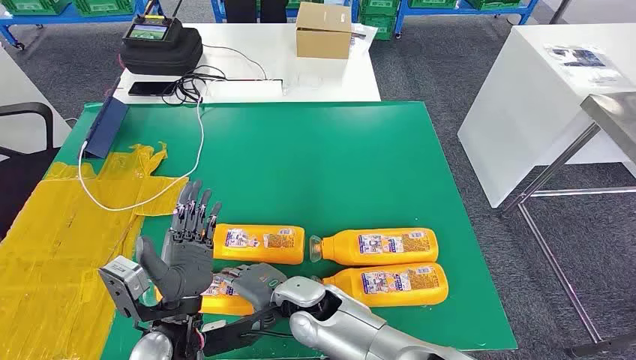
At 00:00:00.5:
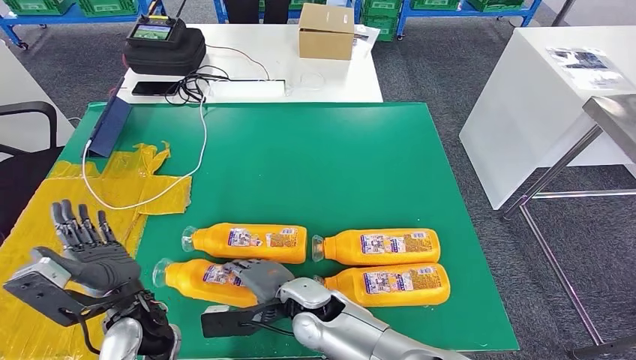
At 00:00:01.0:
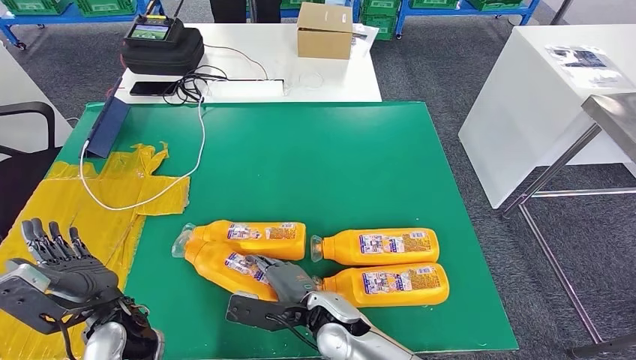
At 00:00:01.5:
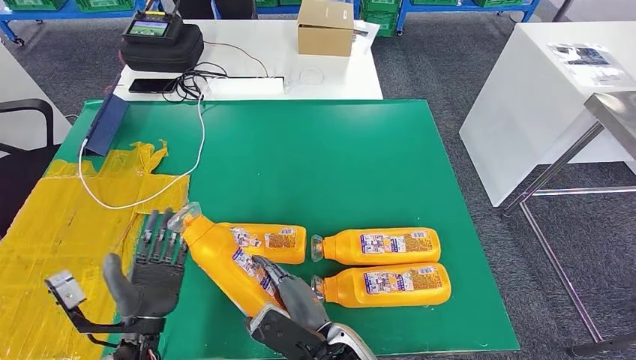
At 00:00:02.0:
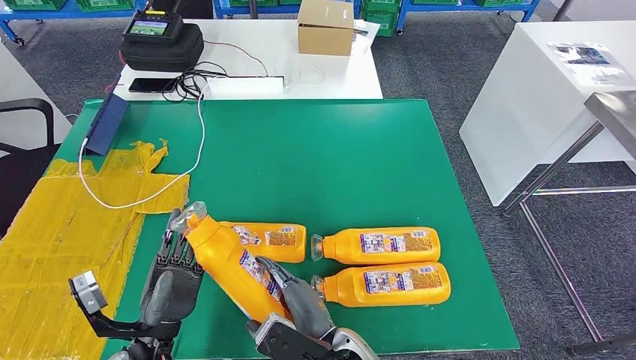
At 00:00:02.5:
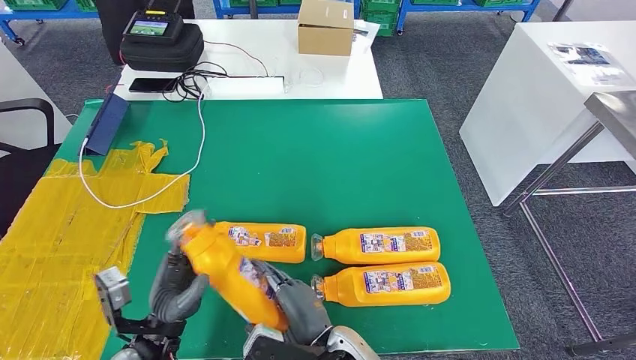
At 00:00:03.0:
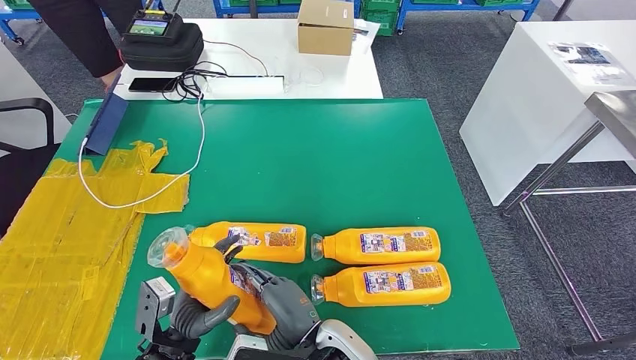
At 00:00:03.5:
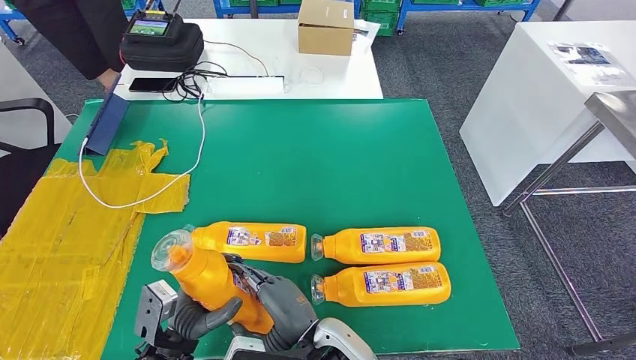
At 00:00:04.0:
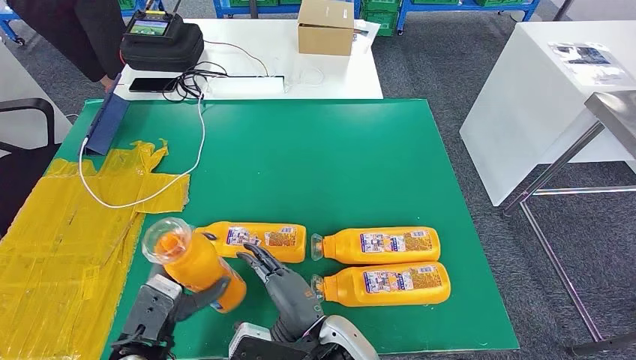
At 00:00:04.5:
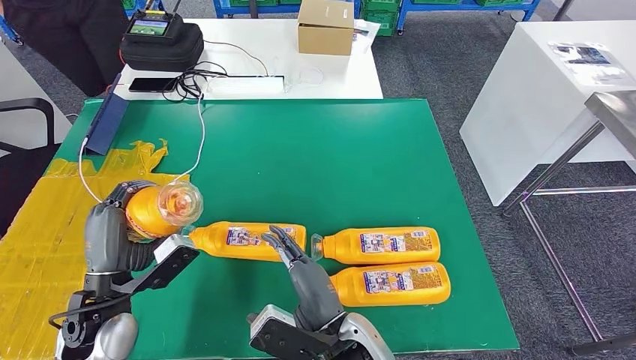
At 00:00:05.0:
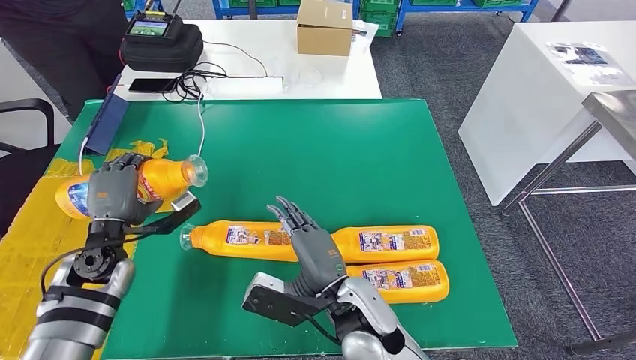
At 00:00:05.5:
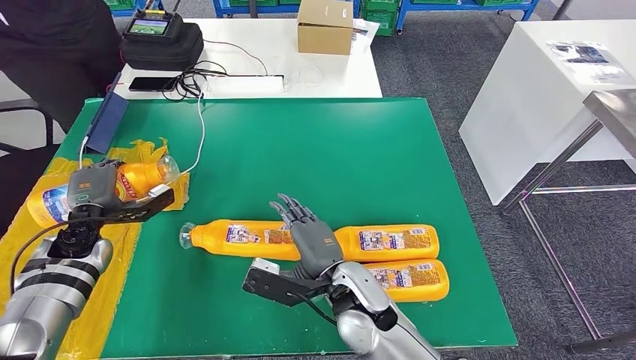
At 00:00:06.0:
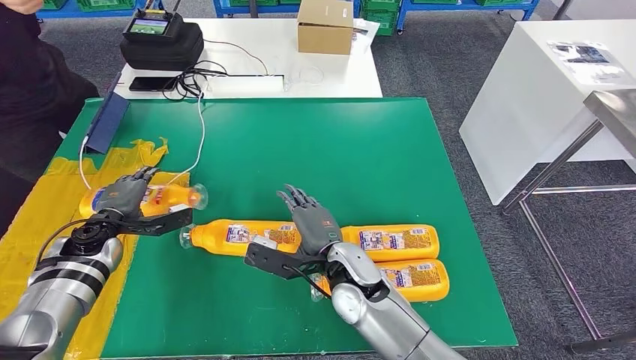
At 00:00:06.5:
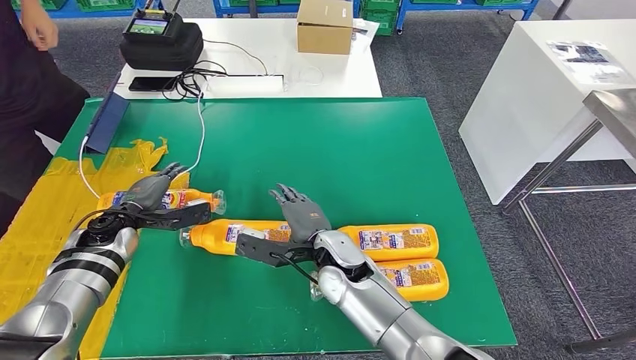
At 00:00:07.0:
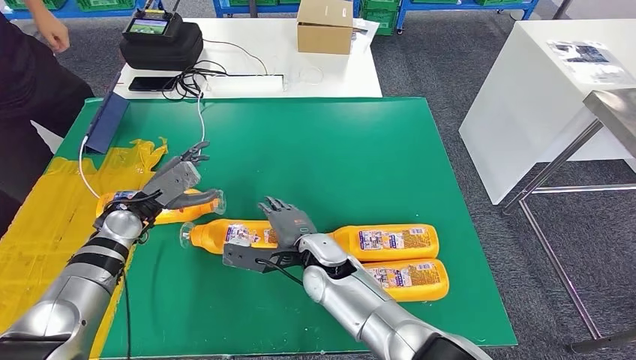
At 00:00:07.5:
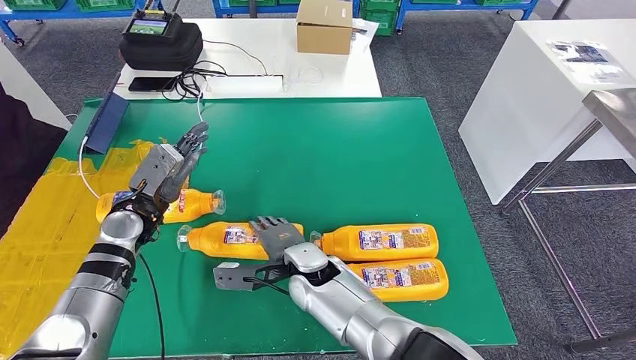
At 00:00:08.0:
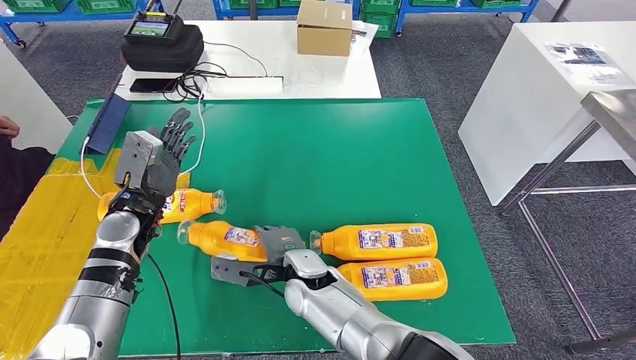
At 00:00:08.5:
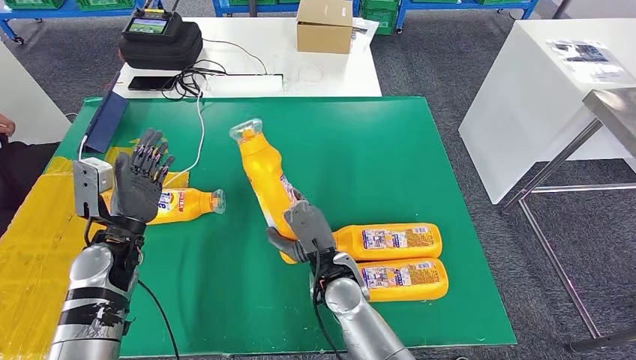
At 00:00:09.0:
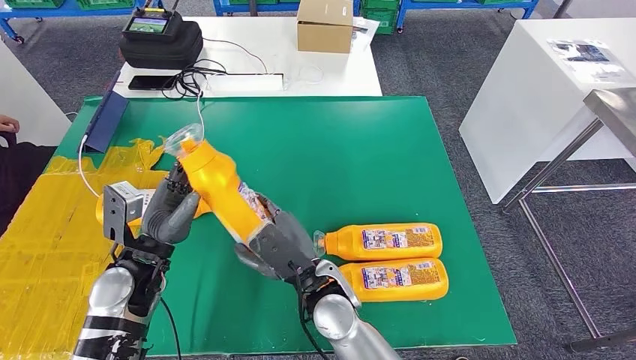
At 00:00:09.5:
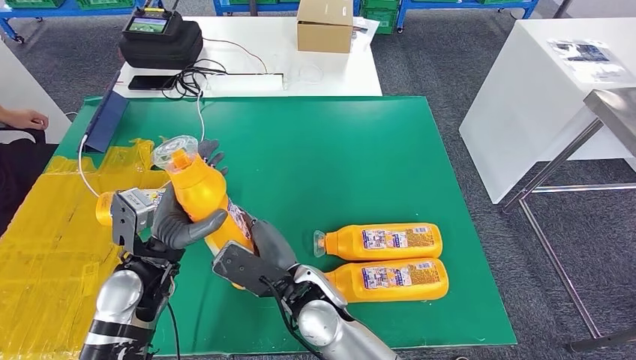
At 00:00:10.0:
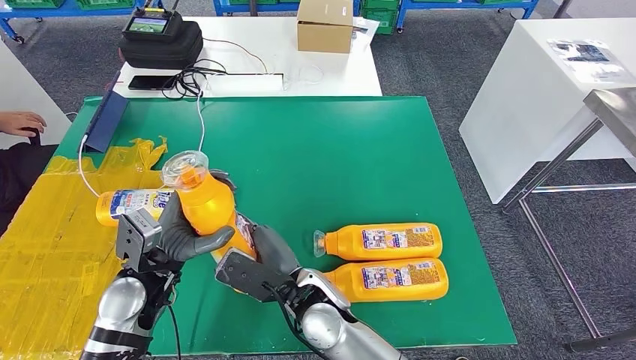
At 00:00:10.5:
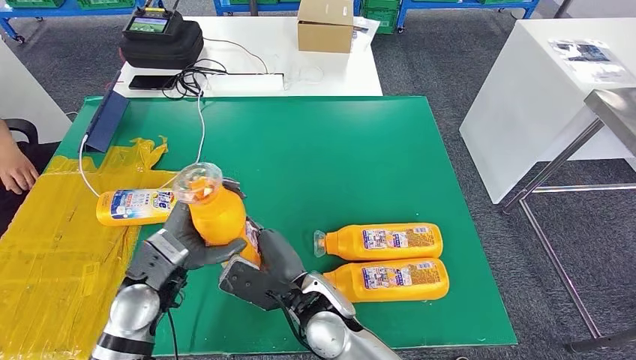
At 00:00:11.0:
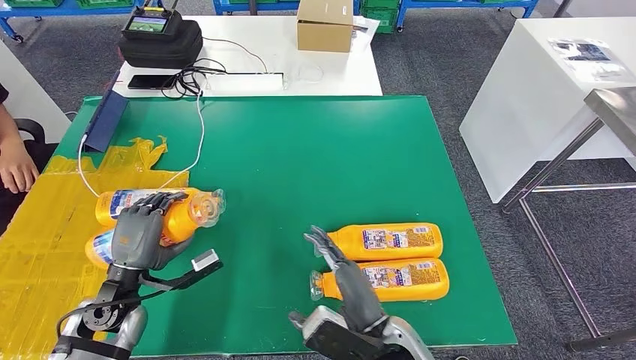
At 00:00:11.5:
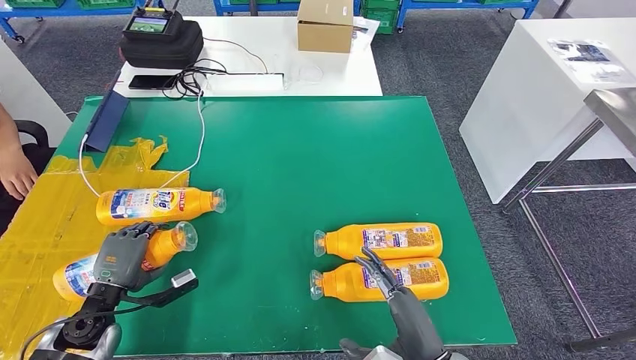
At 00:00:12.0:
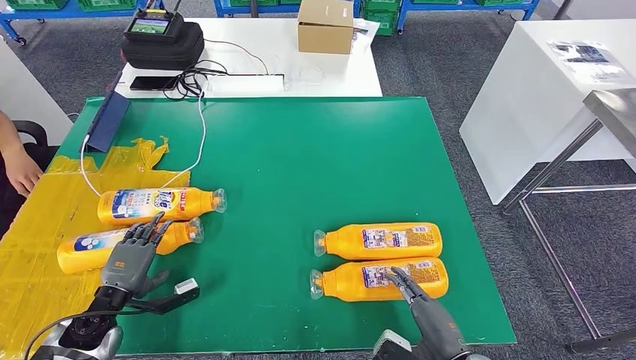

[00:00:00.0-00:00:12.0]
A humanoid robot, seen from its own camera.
Step, 00:00:00.0 to 00:00:03.5: Take the fast-moving consumer goods bottle from the table.
Step, 00:00:04.0 to 00:00:07.0: Flip the fast-moving consumer goods bottle to the front side.
Step, 00:00:08.5 to 00:00:10.0: Pick up the fast-moving consumer goods bottle from the table.
00:00:10.0 to 00:00:12.0: The right hand moves to the right and backward, some 30 cm. Meanwhile the left hand moves to the left and downward, about 20 cm.

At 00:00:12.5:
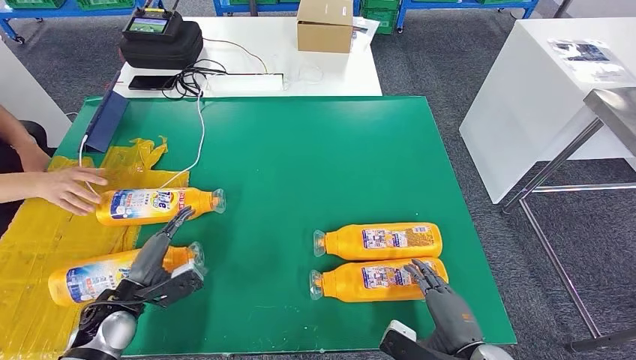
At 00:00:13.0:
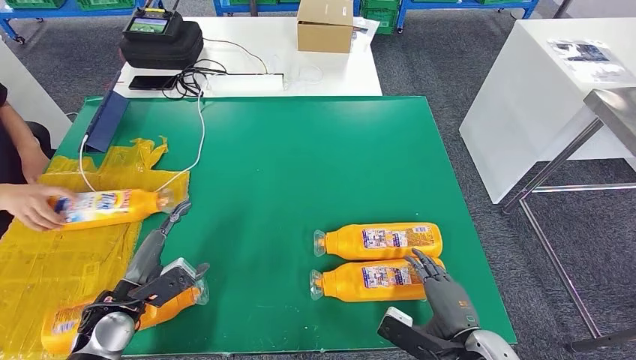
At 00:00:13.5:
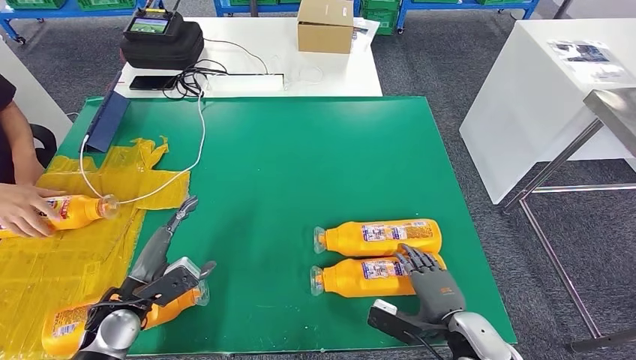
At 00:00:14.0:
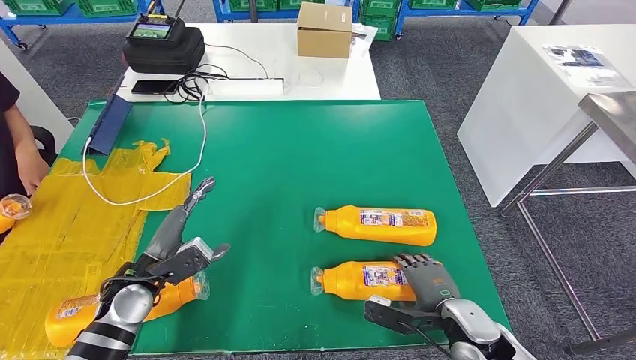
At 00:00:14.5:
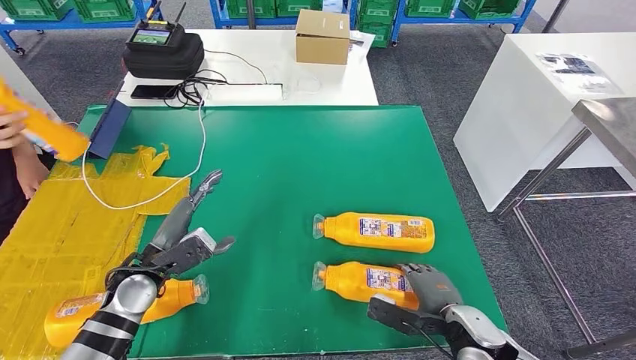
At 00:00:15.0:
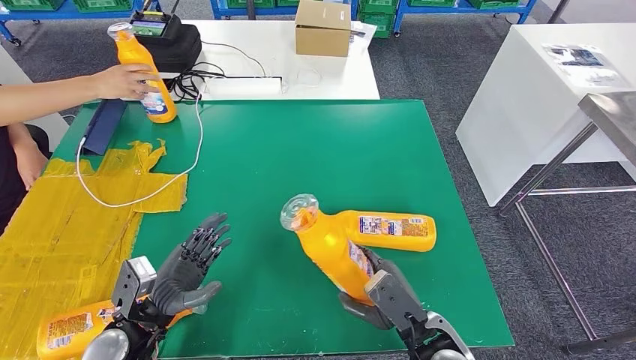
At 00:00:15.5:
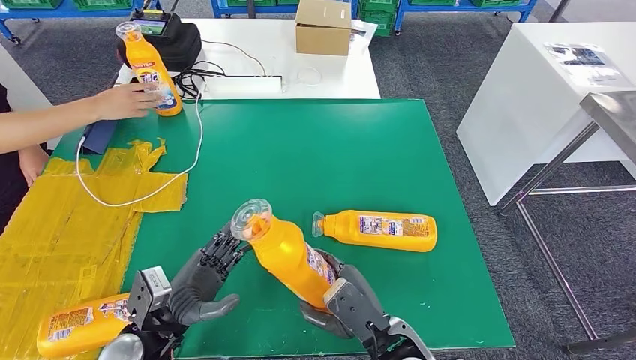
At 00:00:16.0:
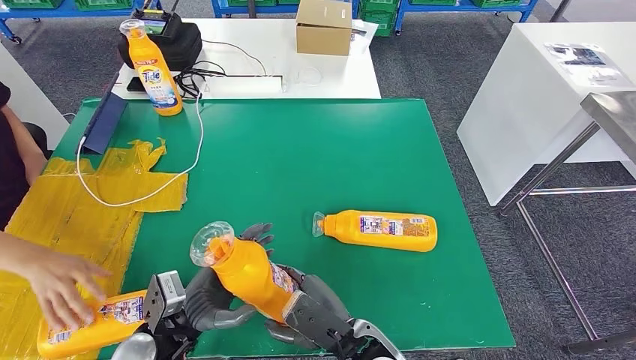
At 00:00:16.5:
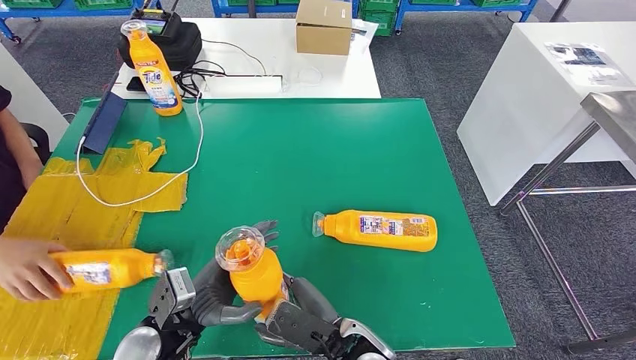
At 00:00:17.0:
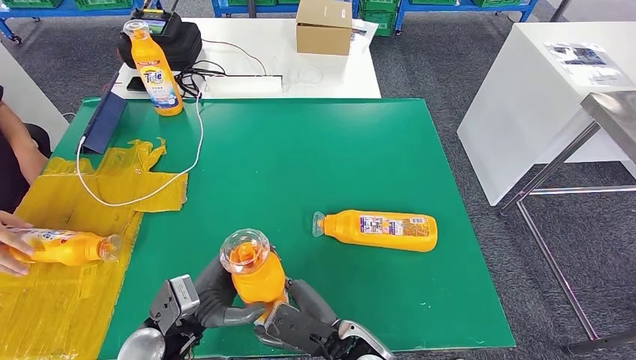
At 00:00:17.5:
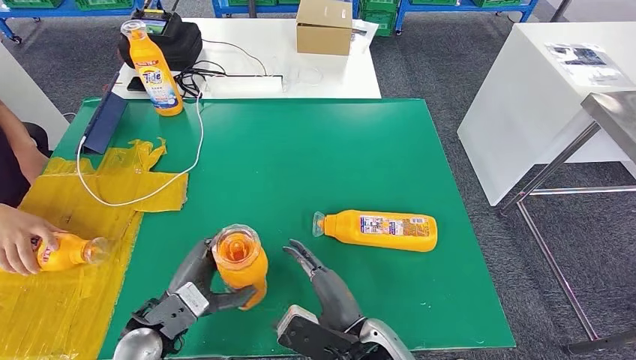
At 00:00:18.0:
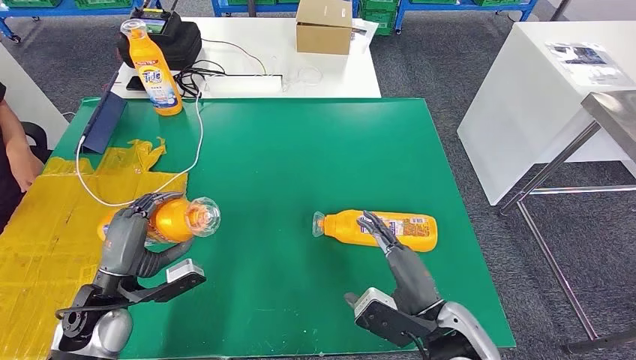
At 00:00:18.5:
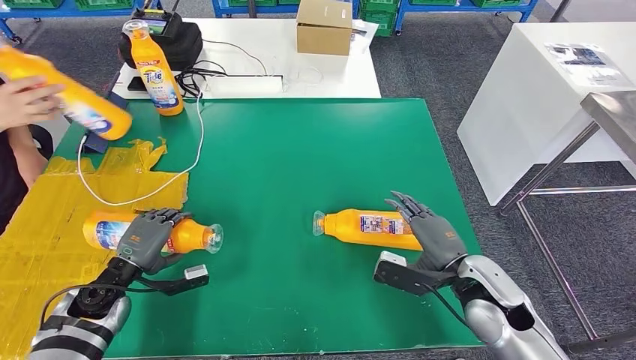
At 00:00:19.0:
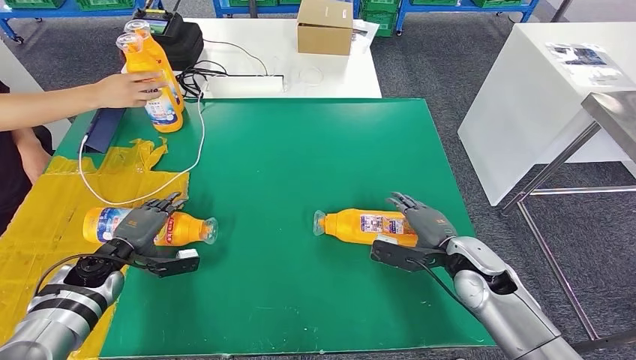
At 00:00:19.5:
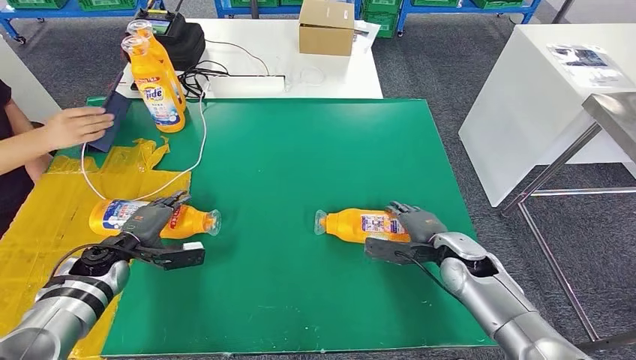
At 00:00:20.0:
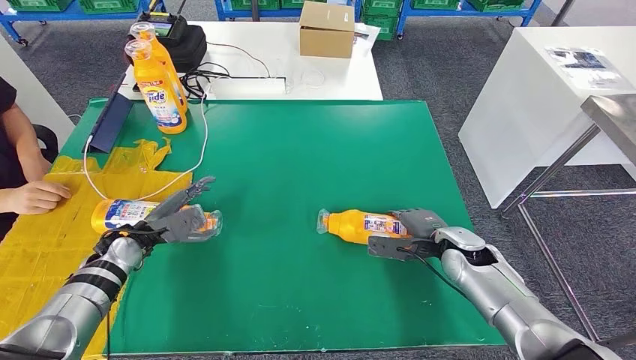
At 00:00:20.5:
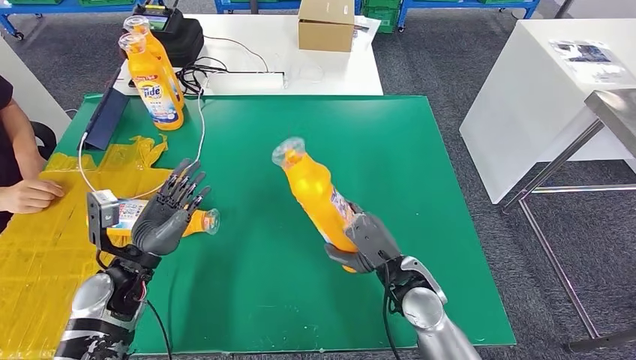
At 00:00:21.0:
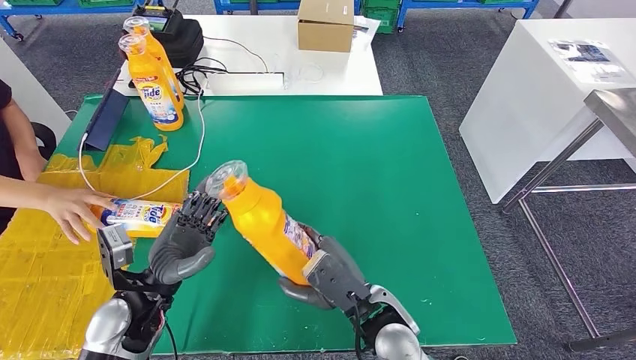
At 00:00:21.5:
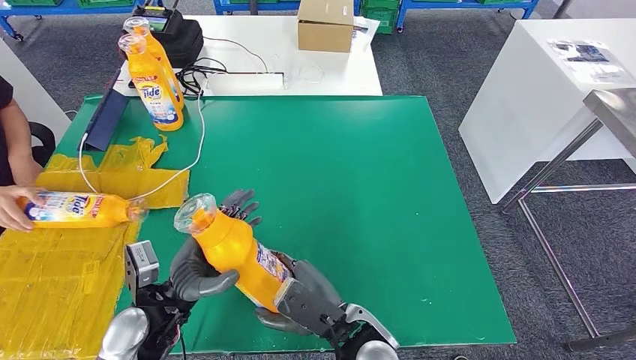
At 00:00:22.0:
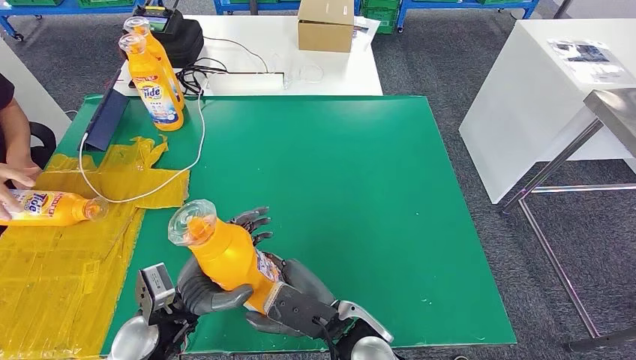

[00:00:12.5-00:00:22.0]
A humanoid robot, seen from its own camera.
Step, 00:00:14.5 to 00:00:16.0: Pick up the fast-moving consumer goods bottle from the table.
Step, 00:00:16.5 to 00:00:19.5: Flip the fast-moving consumer goods bottle to the front side.
00:00:16.5 to 00:00:18.0: The left hand goes roughly 10 cm to the left; the right hand travels to the right and upward by some 15 cm.
